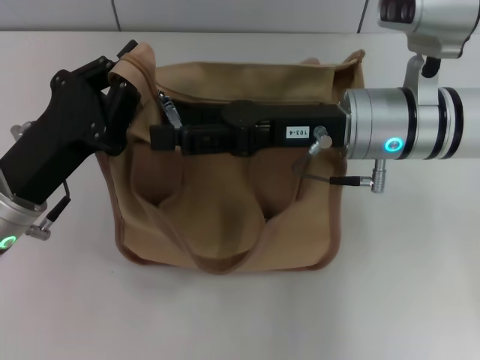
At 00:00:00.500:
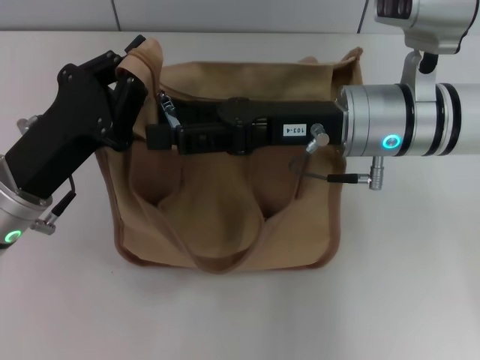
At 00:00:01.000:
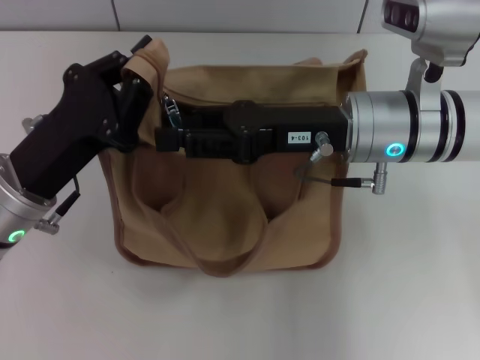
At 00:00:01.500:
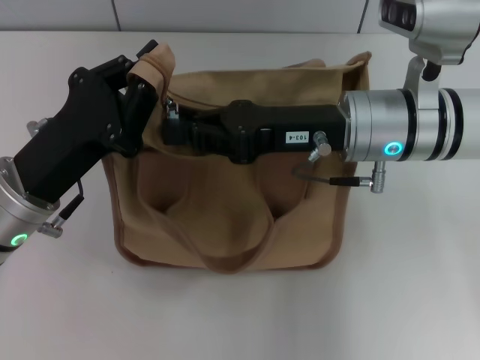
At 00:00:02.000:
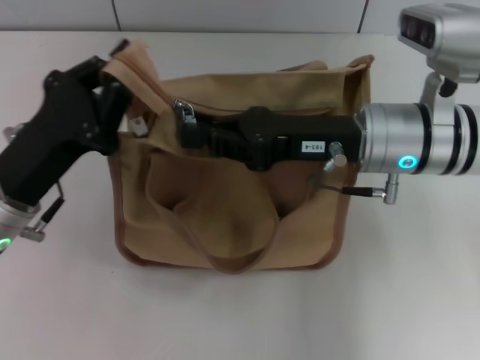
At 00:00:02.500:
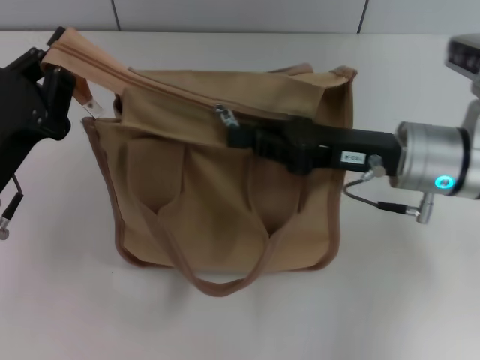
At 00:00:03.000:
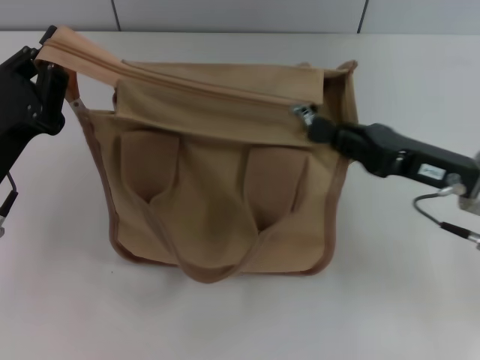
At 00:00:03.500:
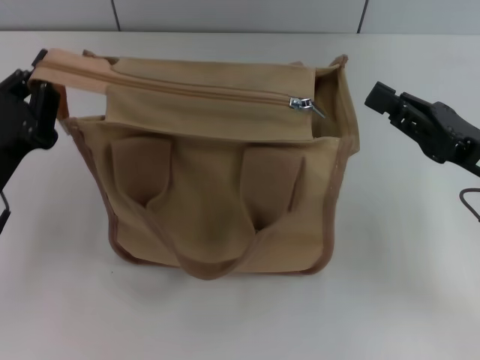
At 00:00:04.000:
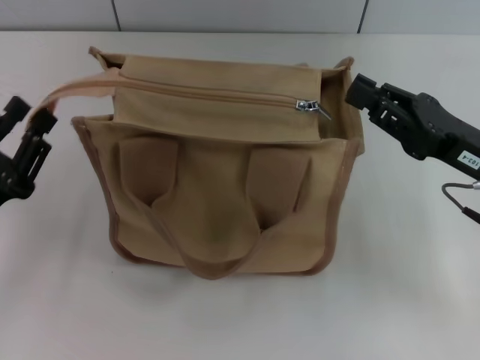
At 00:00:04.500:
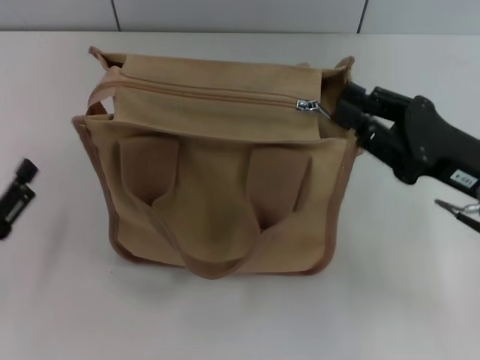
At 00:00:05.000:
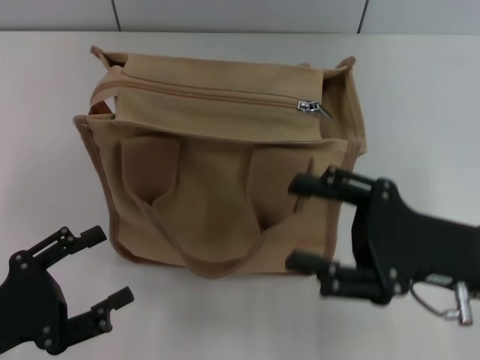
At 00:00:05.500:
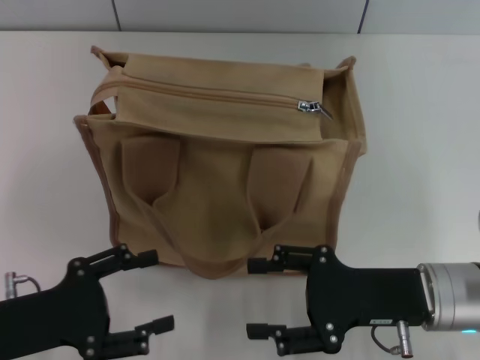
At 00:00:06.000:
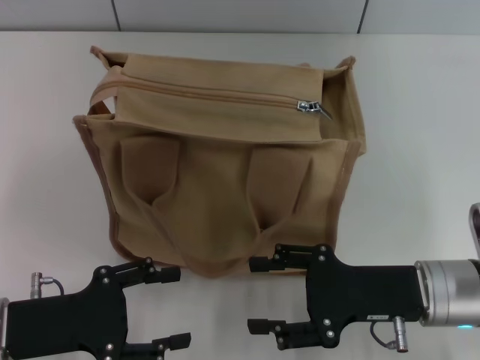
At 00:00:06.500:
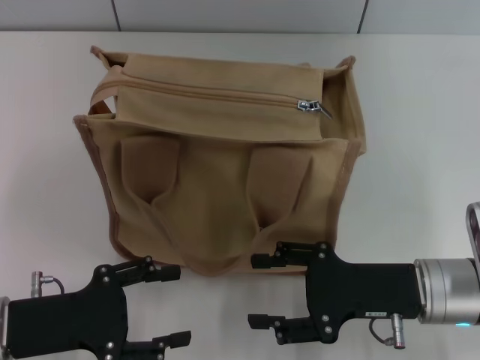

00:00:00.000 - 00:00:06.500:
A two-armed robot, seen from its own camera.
Step, 00:00:00.000 - 00:00:03.000: Pull up the zipper with your right hand.
Step, 00:00:03.500 - 00:00:04.000: Grab the zipper with your left hand.
00:00:00.000 - 00:00:02.000: The right gripper closes.
00:00:02.000 - 00:00:04.500: The right gripper is displaced to the right and backward by about 10 cm. Meanwhile the left gripper is displaced to the left, backward and downward by approximately 15 cm, and opens its fingers.
00:00:04.500 - 00:00:06.500: The left gripper is displaced to the right by approximately 5 cm; the right gripper moves downward, roughly 5 cm, and opens its fingers.

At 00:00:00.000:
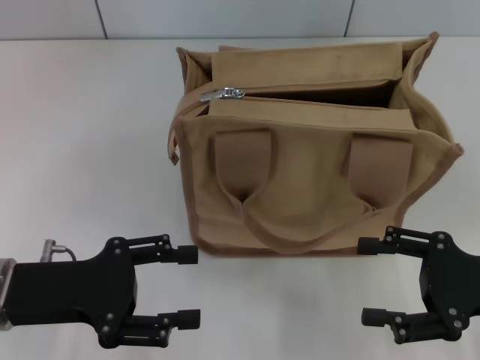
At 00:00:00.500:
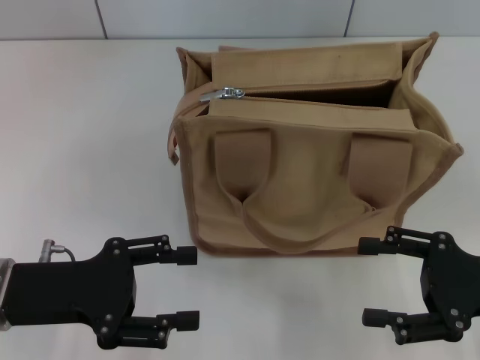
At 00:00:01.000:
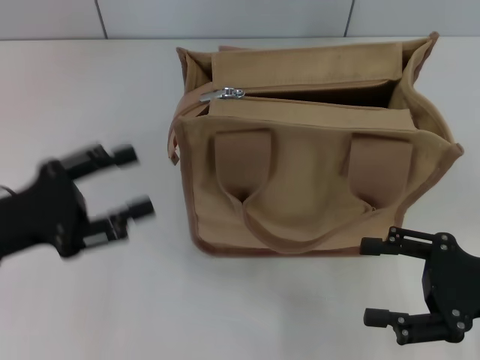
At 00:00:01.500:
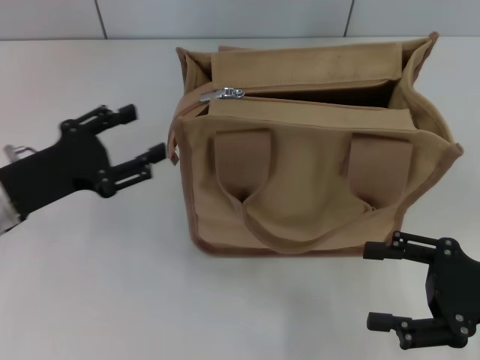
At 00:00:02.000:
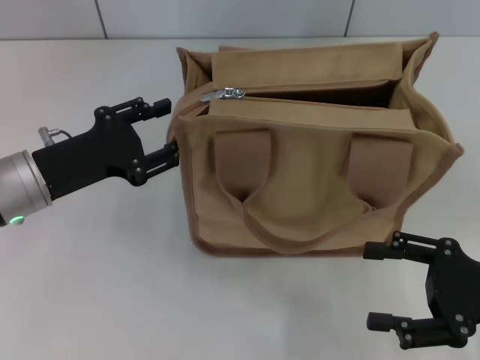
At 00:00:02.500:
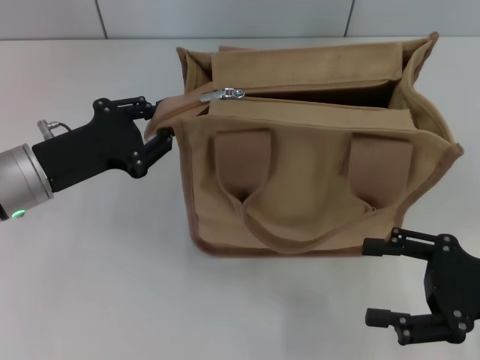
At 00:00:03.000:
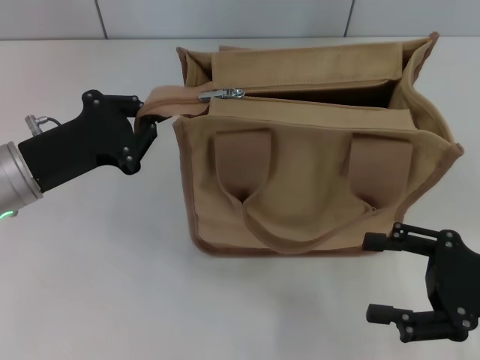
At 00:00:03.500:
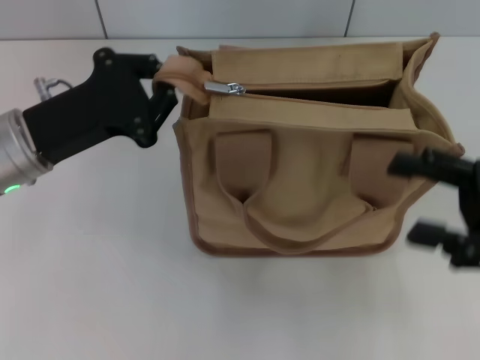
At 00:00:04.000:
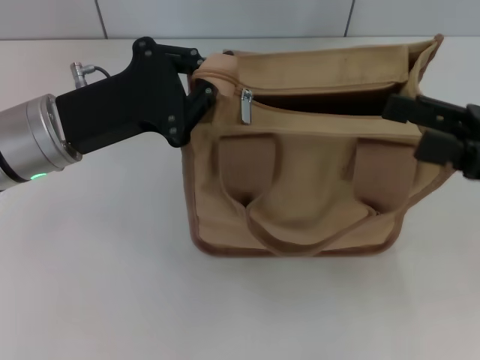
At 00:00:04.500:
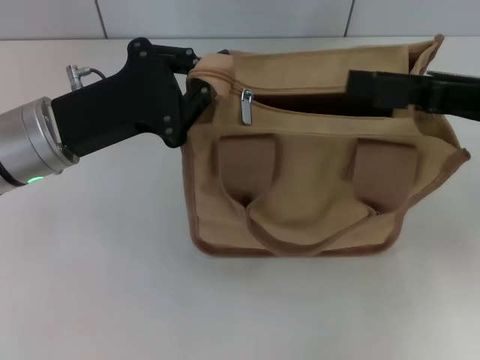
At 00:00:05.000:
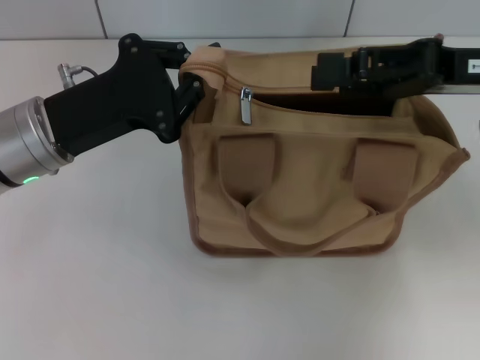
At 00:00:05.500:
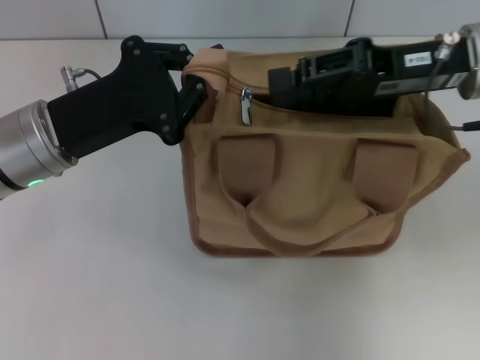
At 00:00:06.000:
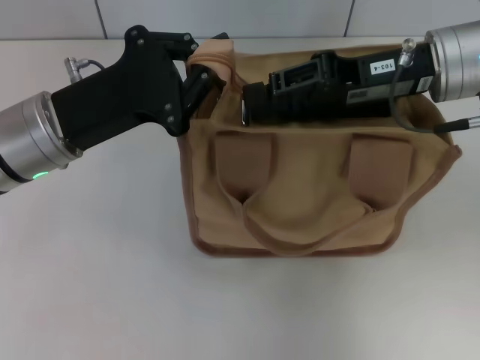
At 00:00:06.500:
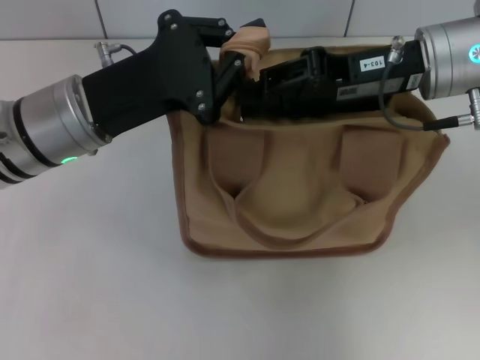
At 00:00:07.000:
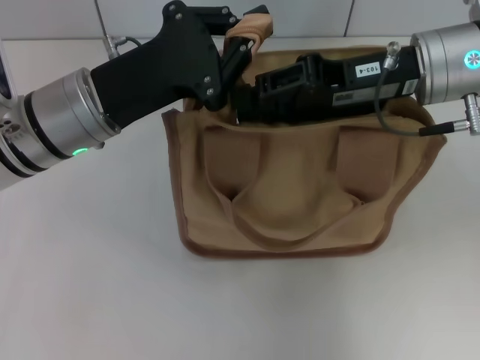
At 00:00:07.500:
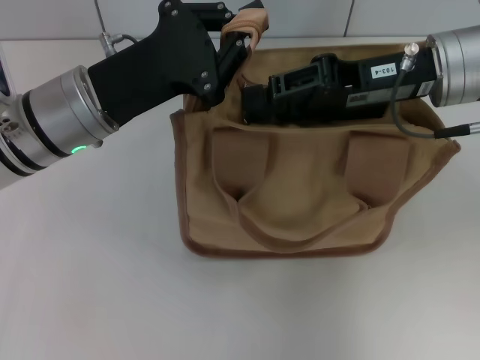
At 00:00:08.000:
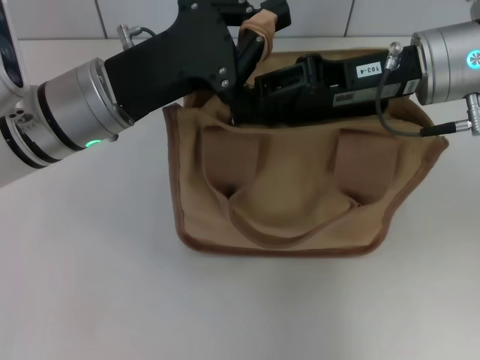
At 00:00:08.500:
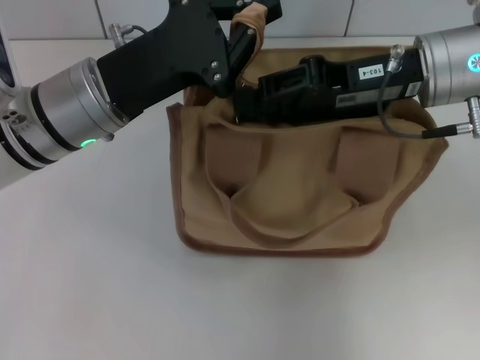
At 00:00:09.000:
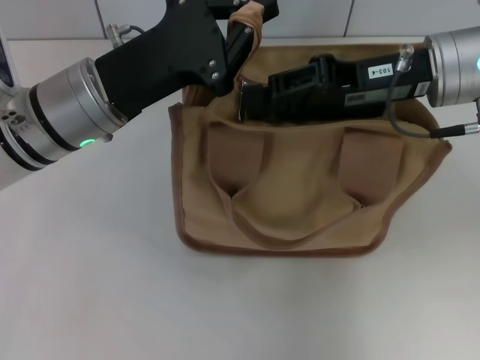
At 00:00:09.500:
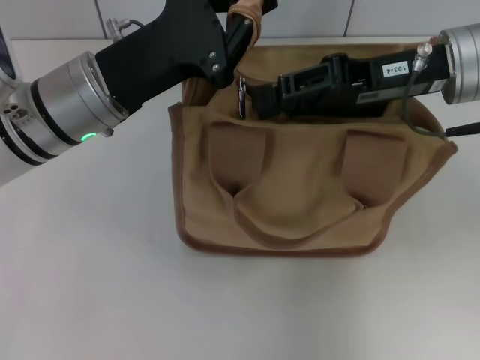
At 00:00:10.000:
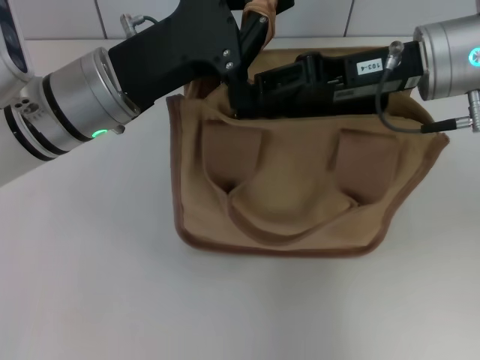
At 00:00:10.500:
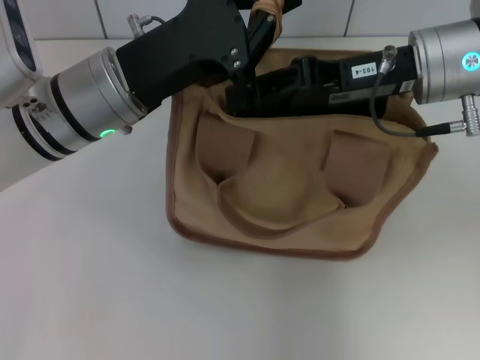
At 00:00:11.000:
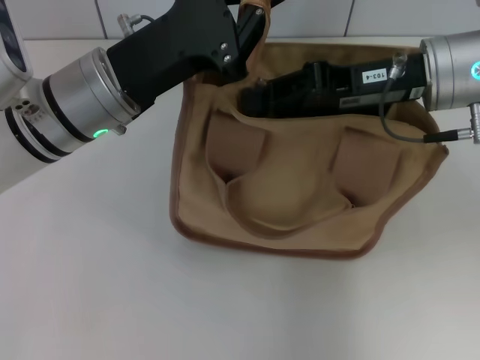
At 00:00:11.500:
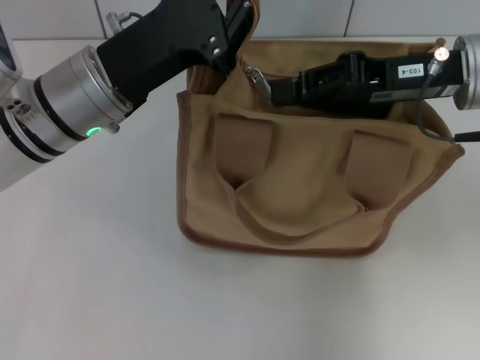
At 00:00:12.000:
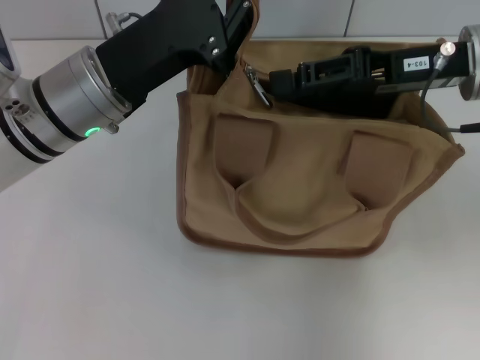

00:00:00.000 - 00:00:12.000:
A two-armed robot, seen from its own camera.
00:00:00.000 - 00:00:02.000: The left gripper heads forward, covering approximately 10 cm.
00:00:02.000 - 00:00:04.000: The right gripper is displaced upward and forward by some 10 cm, while the left gripper goes some 5 cm upward, and closes up.
00:00:04.000 - 00:00:06.000: The right gripper moves to the left and forward, some 15 cm, and closes up.
00:00:08.000 - 00:00:12.000: The grippers make only small movements.

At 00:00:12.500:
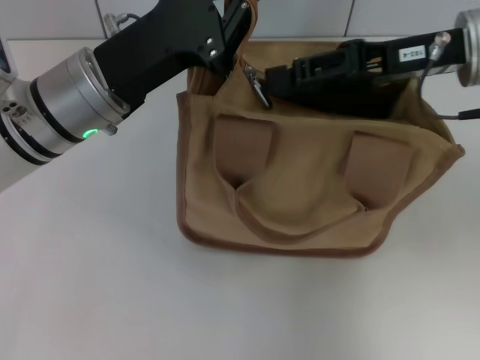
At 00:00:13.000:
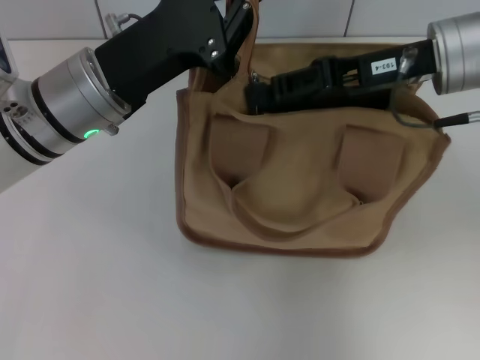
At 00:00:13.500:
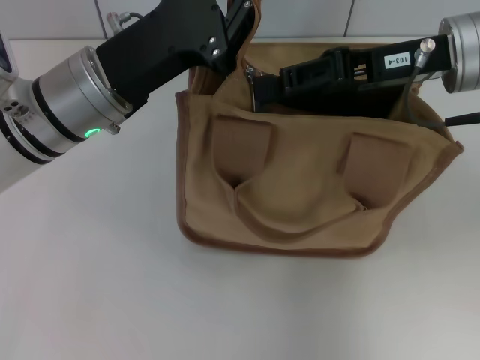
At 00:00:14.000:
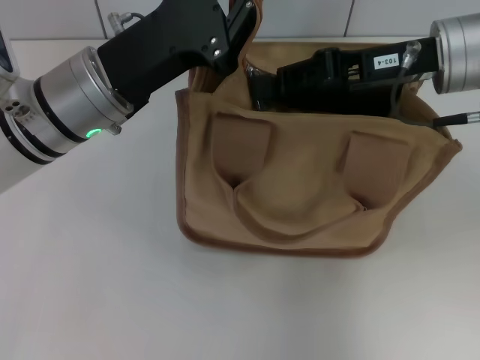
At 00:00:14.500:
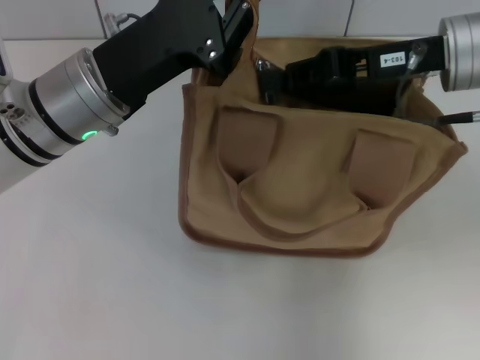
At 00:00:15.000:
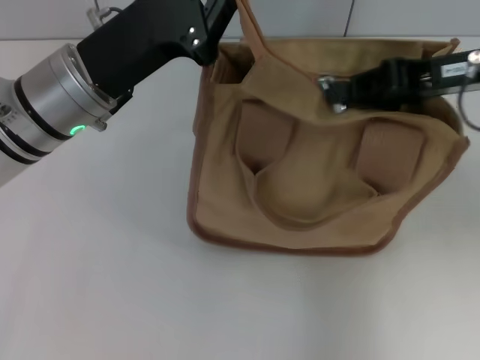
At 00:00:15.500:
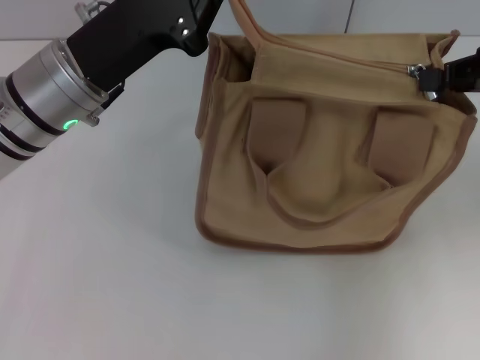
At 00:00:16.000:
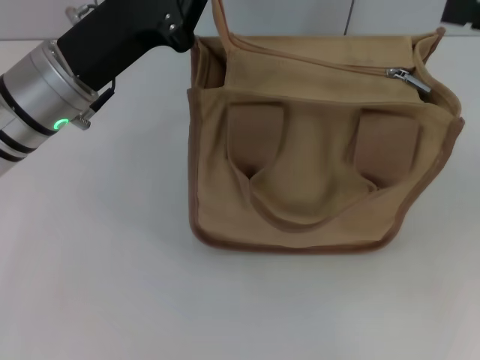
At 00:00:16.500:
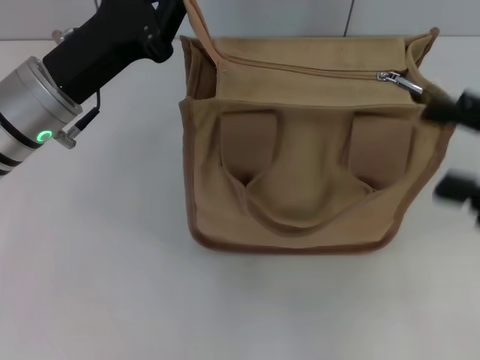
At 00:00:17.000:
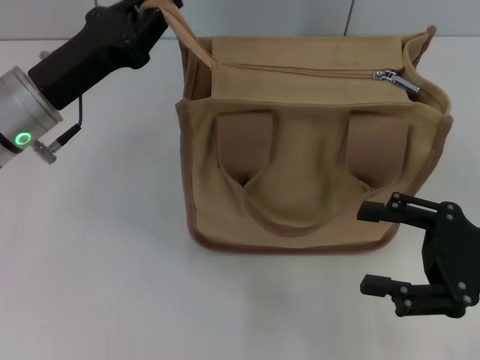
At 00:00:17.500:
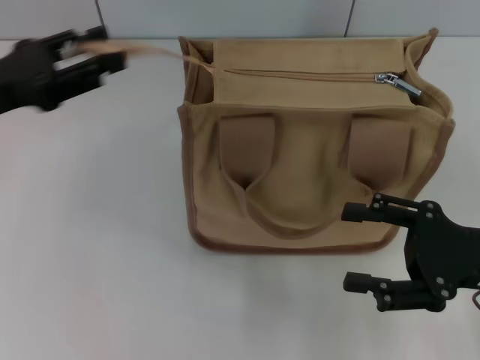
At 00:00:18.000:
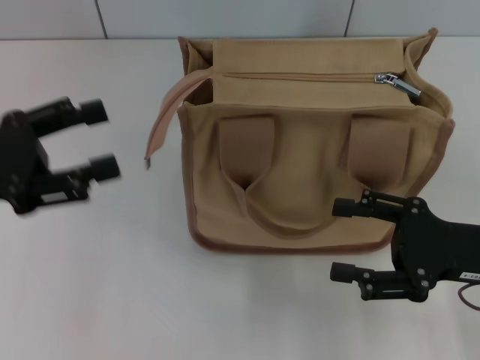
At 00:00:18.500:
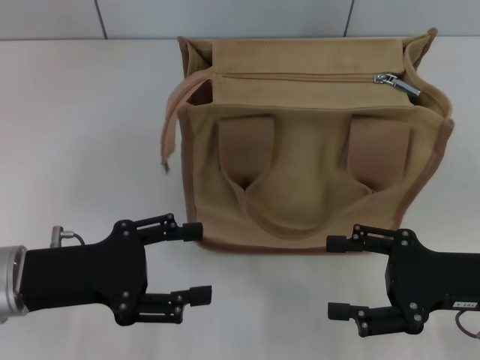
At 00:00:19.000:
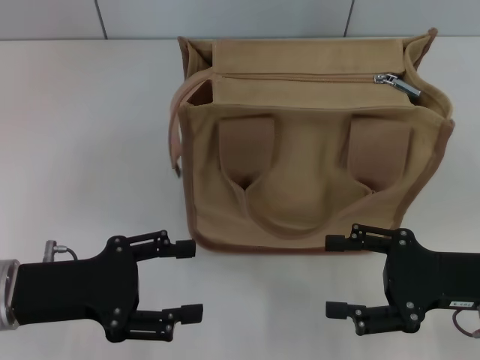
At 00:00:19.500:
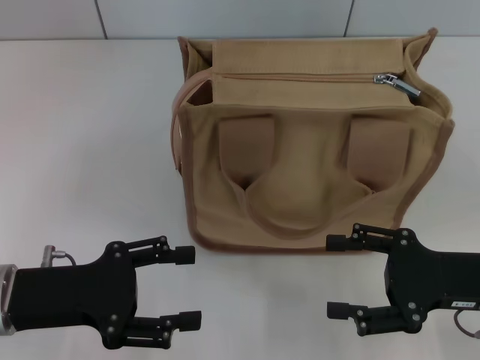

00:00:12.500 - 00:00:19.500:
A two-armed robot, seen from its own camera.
Step, 00:00:12.500 - 00:00:15.500: Pull up the zipper with your right hand.
Step, 00:00:16.000 - 00:00:17.500: Grab the zipper with your left hand.
00:00:12.500 - 00:00:14.500: The right gripper closes up.
00:00:14.500 - 00:00:16.000: The right gripper goes about 15 cm to the right and backward.
00:00:16.000 - 00:00:17.500: The left gripper travels to the left by roughly 10 cm. The right gripper travels downward, backward and to the left by some 15 cm, and opens.
00:00:17.500 - 00:00:19.500: The left gripper travels backward, downward and to the right by roughly 15 cm, and opens.
